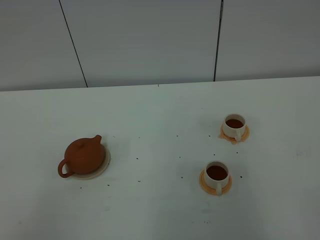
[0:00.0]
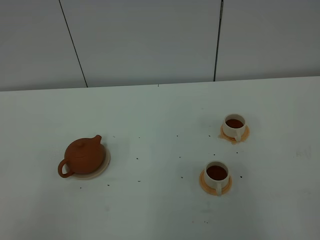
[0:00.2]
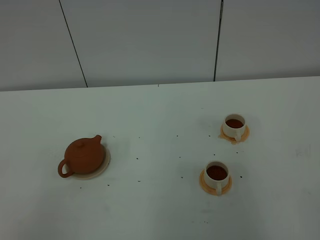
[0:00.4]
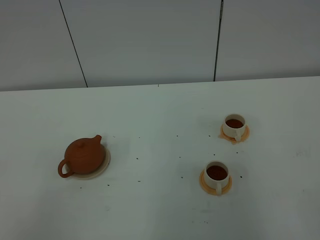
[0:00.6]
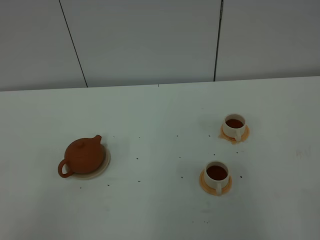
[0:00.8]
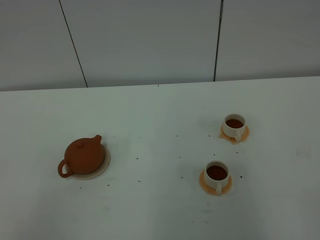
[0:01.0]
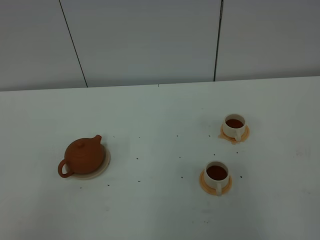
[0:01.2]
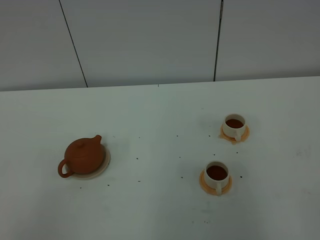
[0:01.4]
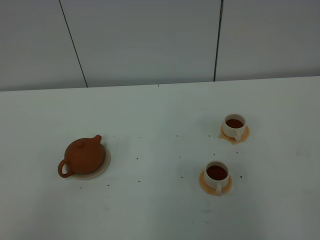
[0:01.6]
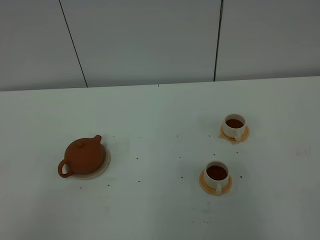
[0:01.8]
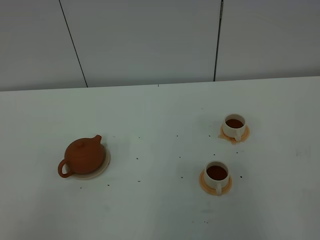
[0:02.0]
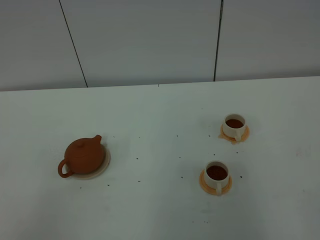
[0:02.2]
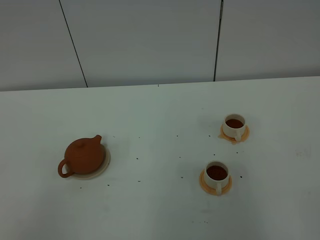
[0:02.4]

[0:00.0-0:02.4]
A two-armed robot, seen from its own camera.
Task of the whole recording: grasp the brown teapot and pour the tea into the two white teacups one by one, put the brown teapot back in its original place.
0:00.0 to 0:02.4: Neither gripper changes place.

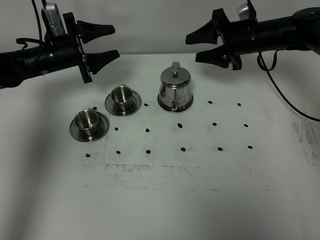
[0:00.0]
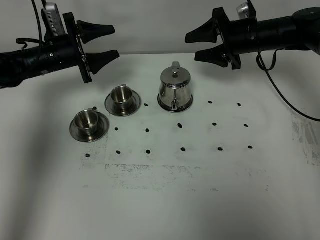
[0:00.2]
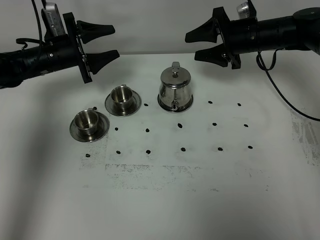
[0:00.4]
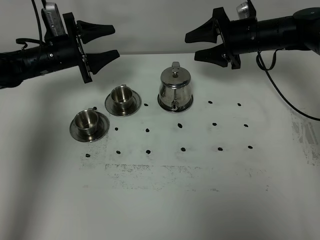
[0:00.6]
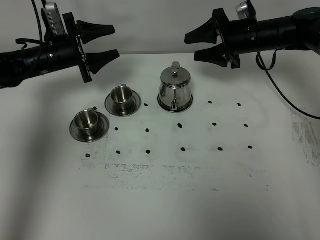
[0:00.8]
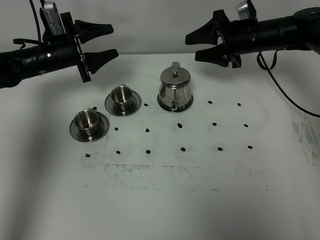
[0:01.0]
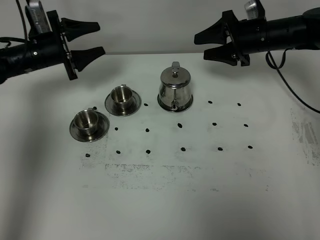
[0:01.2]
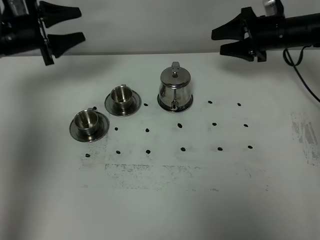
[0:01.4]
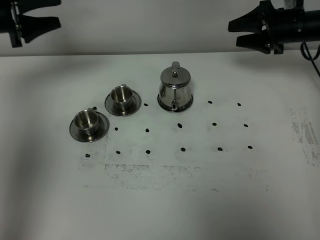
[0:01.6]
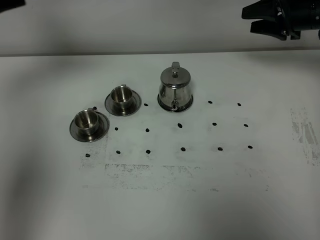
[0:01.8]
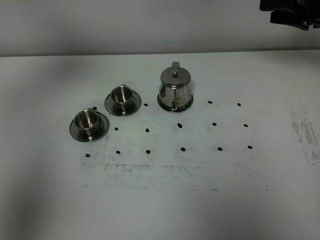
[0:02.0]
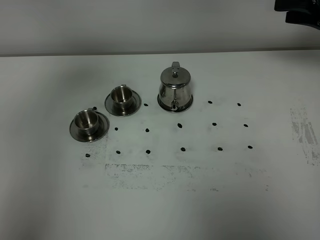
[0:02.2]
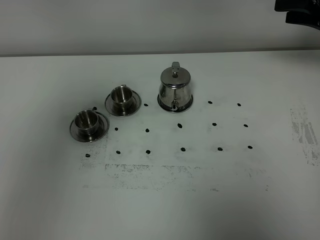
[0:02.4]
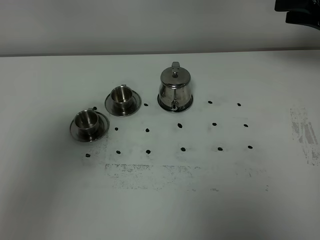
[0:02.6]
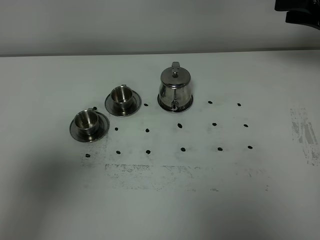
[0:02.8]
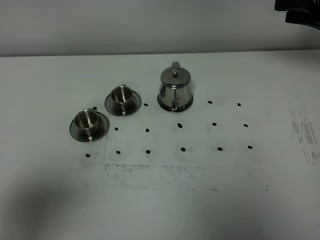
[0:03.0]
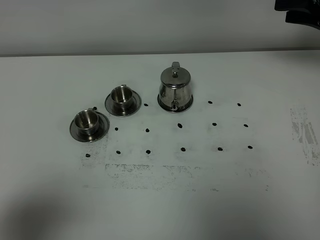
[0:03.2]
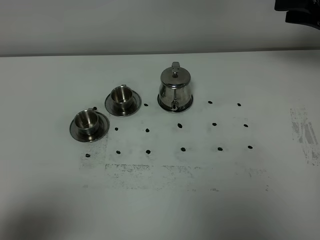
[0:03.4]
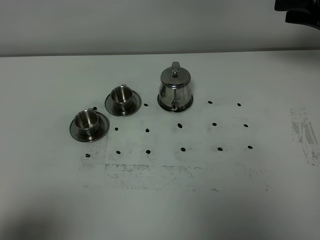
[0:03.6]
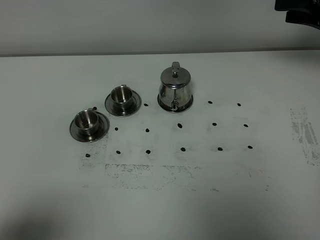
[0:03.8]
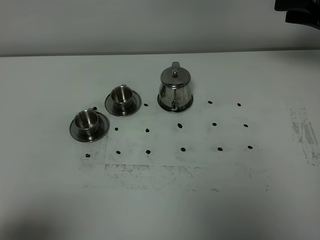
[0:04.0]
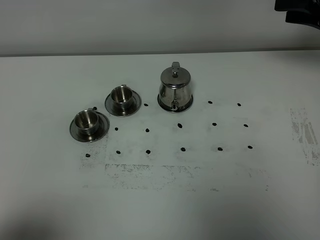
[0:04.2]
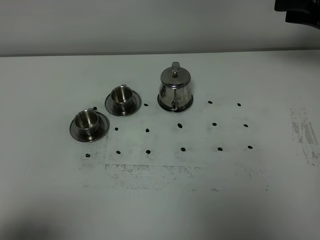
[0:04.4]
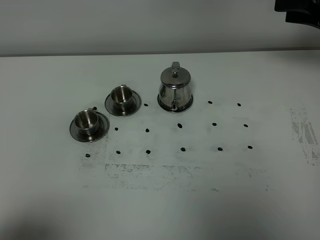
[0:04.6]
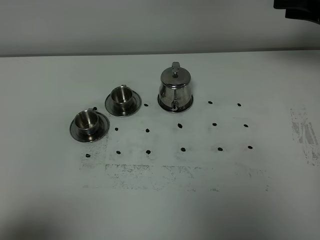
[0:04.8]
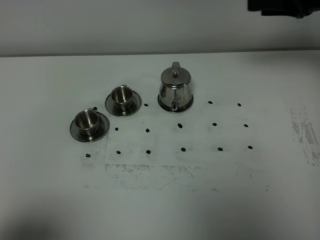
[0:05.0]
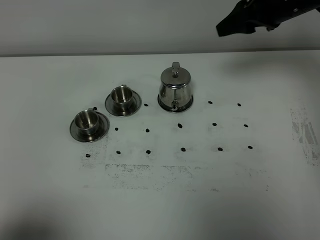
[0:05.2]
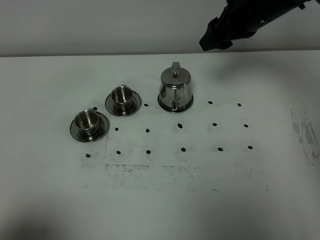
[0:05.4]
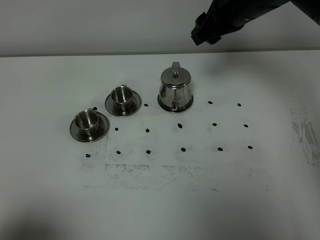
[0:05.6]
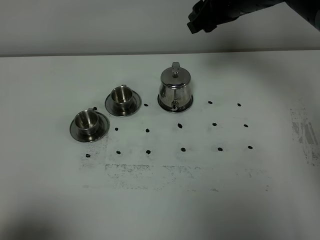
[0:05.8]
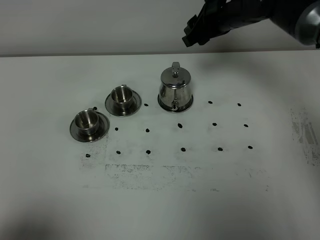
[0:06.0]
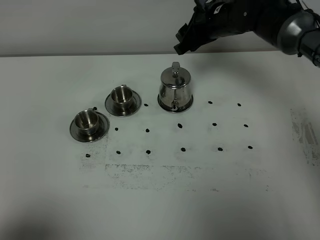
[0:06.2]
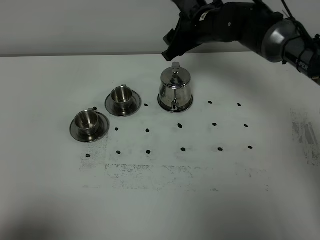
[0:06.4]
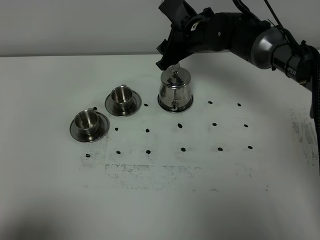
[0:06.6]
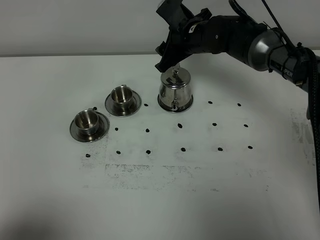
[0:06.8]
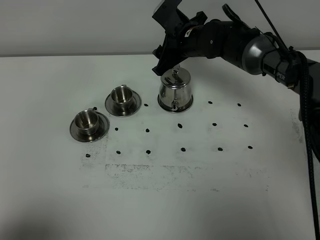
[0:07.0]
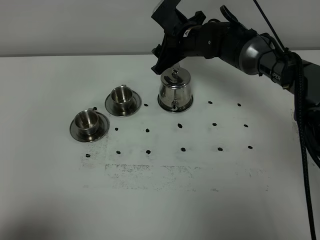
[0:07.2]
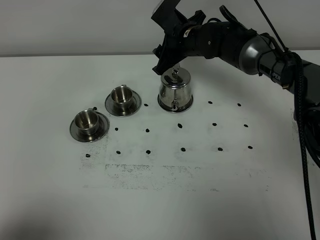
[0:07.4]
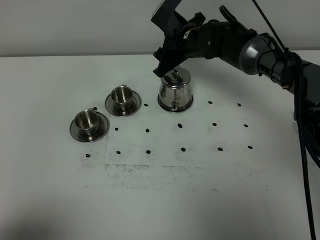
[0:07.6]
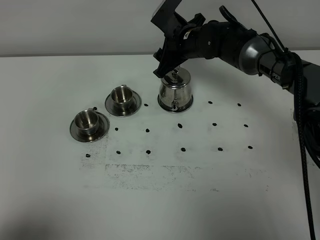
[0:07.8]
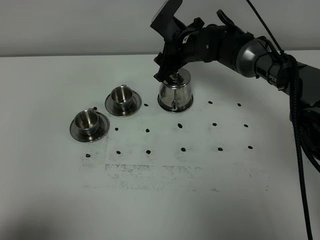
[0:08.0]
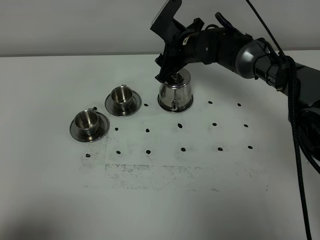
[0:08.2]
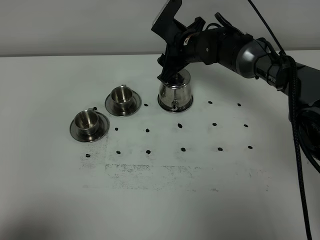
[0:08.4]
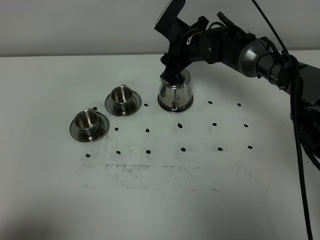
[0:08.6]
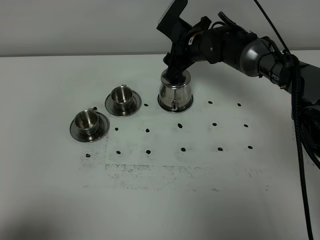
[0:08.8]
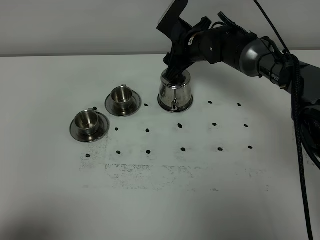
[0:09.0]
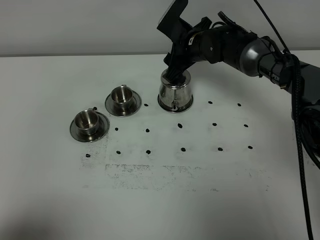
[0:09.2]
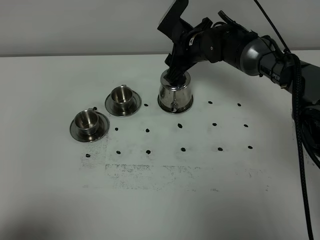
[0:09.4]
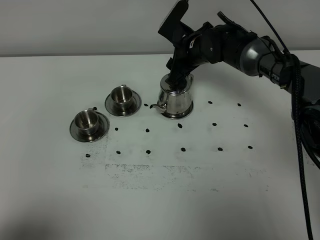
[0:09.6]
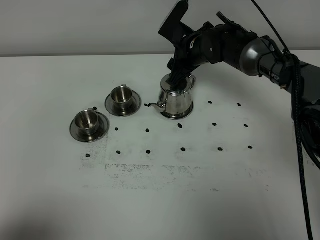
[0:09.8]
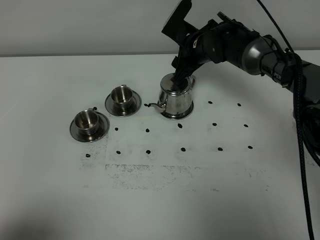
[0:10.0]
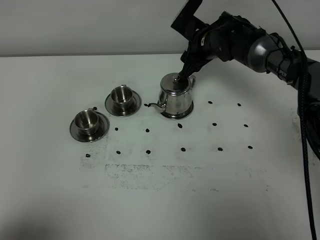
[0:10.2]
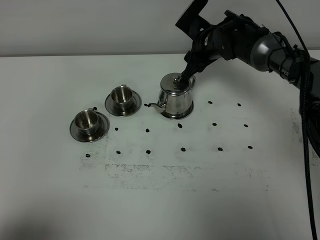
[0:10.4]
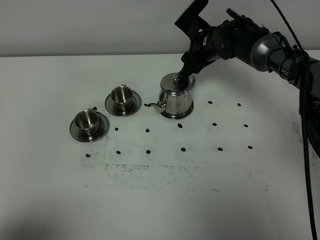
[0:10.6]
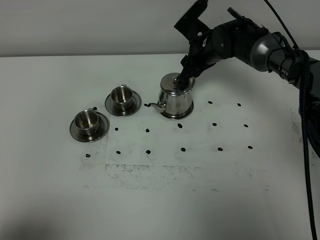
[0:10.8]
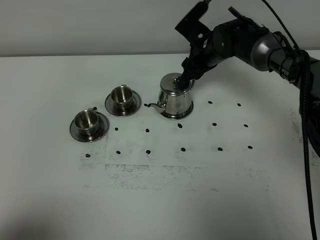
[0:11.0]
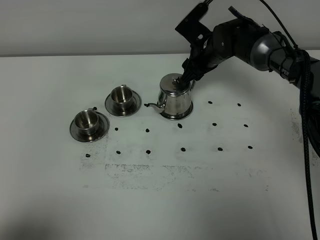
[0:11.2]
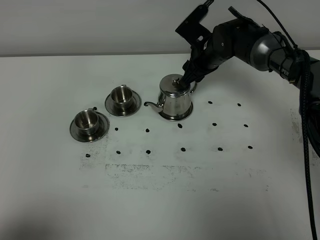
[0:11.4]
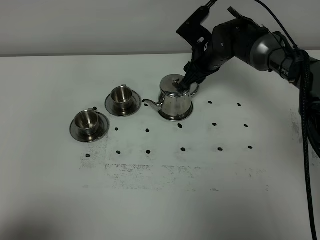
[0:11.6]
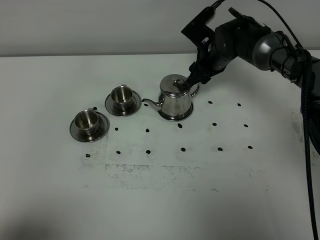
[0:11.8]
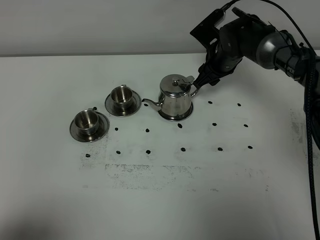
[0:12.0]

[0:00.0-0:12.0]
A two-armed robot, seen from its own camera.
Task of the whole recording: grasp the stainless steel teapot and pour the tea into the two stainless steel teacups one by one, put the stainless steel teapot back in its original place.
0:00.0 to 0:01.6: The left gripper shifts about 15 cm upward and to the left. The right gripper moves to the right, some 10 cm.
0:01.6 to 0:03.0: The left gripper shifts approximately 40 cm backward, while the right gripper travels upward and to the right by roughly 10 cm.
0:03.0 to 0:04.4: The left gripper moves downward, roughly 5 cm.
0:04.4 to 0:06.0: The right gripper heads to the left, covering some 20 cm.
0:06.0 to 0:07.6: The right gripper heads downward and to the left, covering approximately 10 cm.
0:07.6 to 0:10.4: The grippers make only small movements.
0:10.4 to 0:12.0: The grippers move only a little.

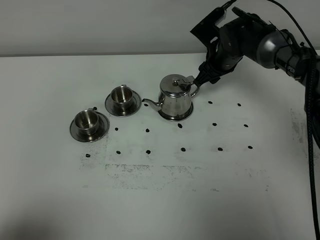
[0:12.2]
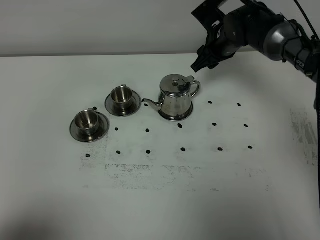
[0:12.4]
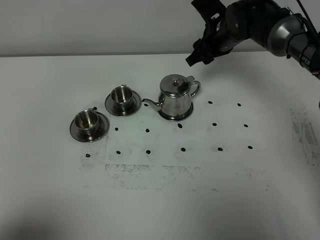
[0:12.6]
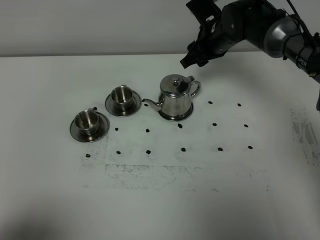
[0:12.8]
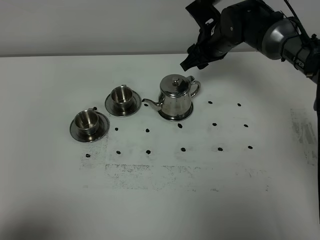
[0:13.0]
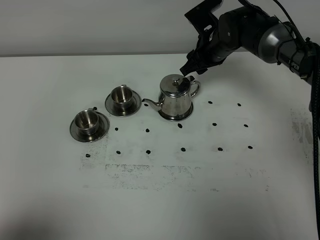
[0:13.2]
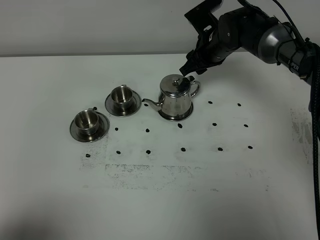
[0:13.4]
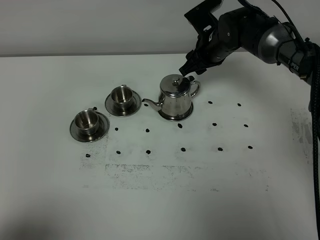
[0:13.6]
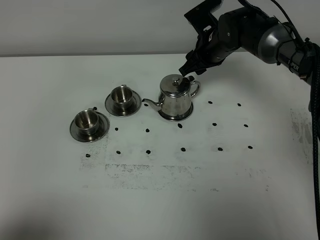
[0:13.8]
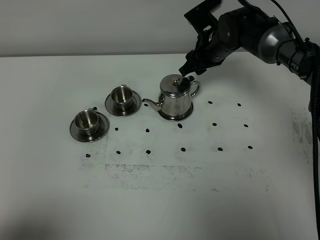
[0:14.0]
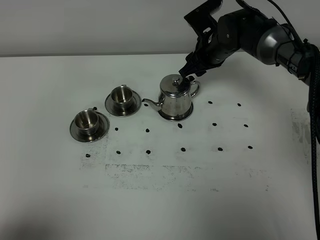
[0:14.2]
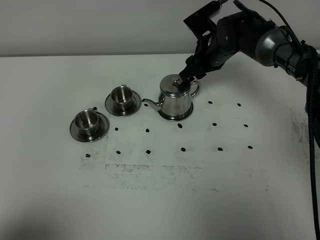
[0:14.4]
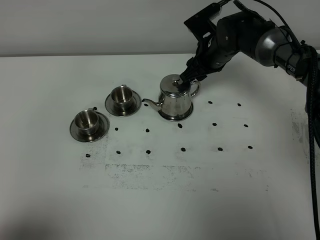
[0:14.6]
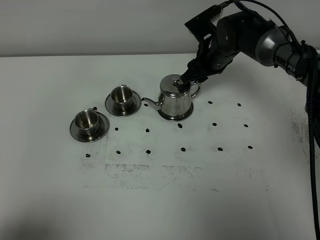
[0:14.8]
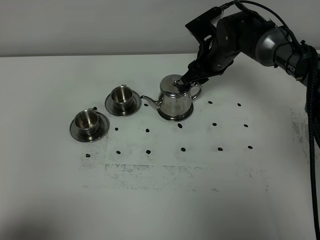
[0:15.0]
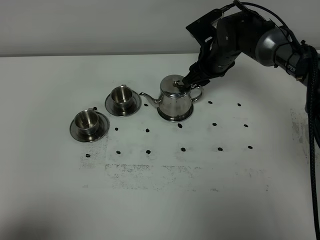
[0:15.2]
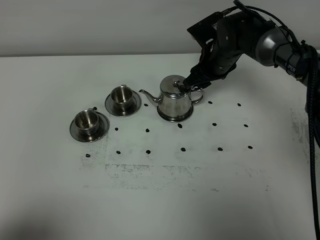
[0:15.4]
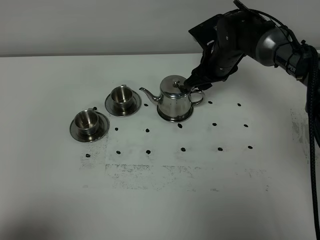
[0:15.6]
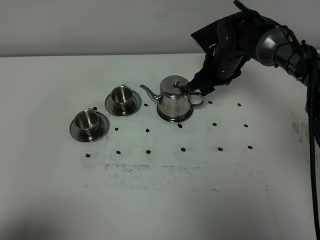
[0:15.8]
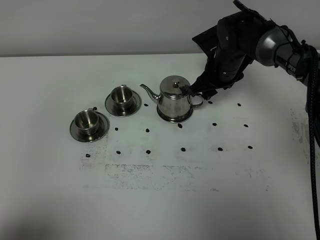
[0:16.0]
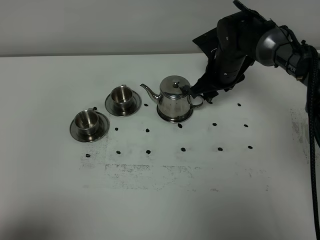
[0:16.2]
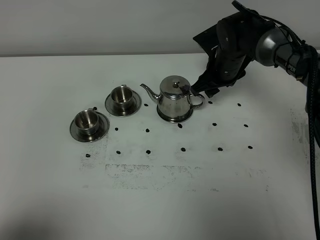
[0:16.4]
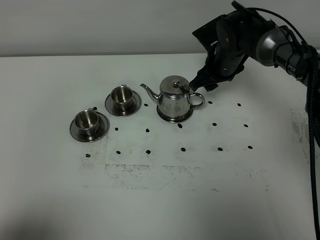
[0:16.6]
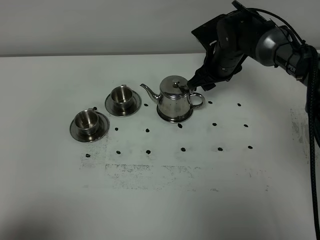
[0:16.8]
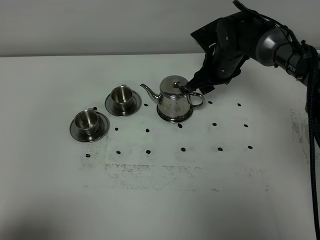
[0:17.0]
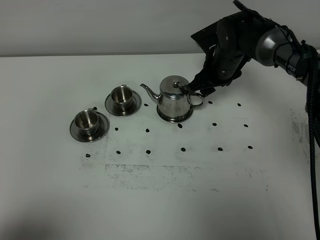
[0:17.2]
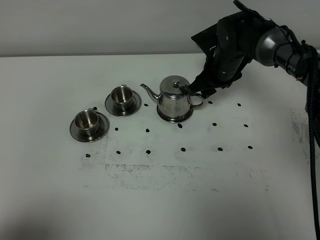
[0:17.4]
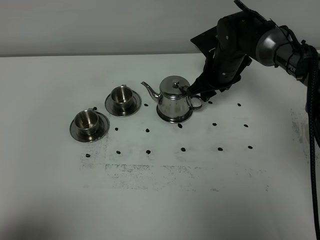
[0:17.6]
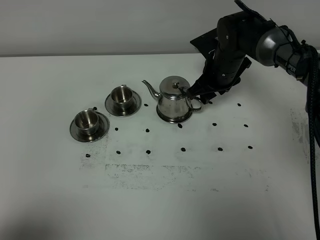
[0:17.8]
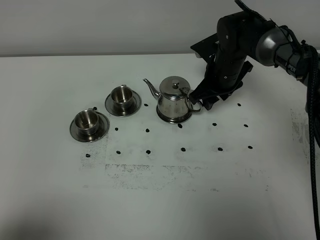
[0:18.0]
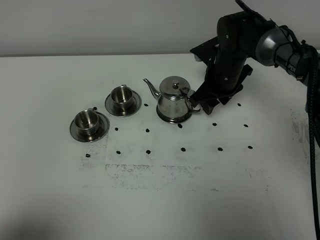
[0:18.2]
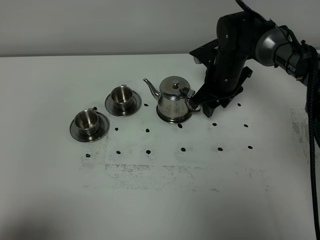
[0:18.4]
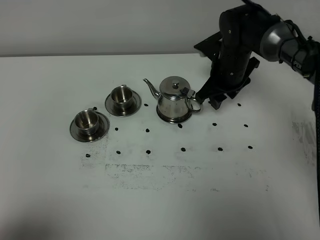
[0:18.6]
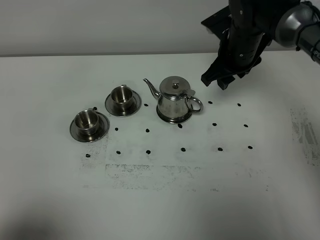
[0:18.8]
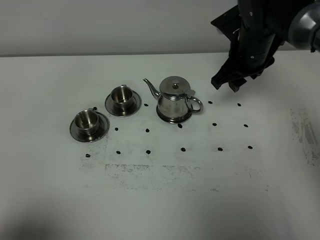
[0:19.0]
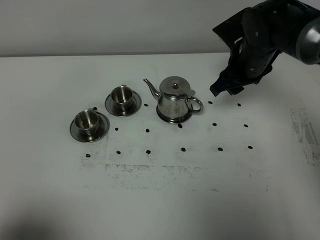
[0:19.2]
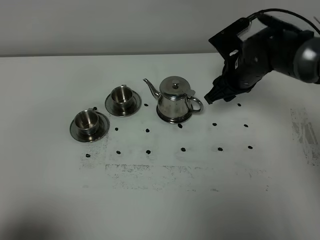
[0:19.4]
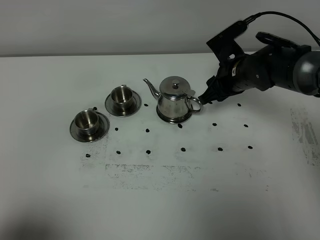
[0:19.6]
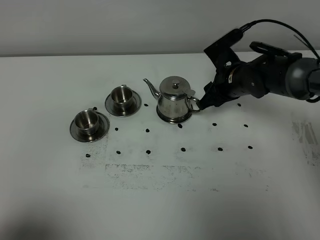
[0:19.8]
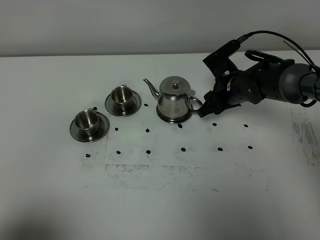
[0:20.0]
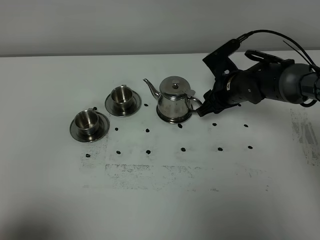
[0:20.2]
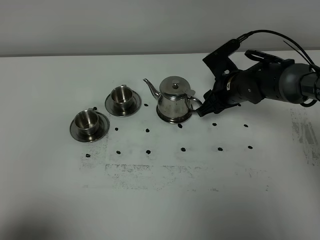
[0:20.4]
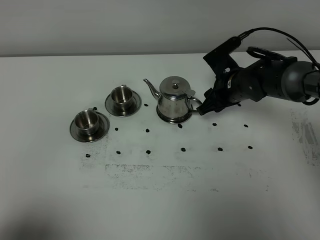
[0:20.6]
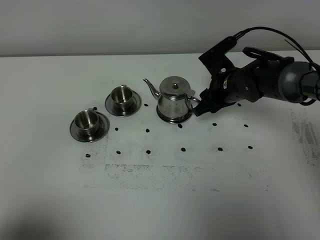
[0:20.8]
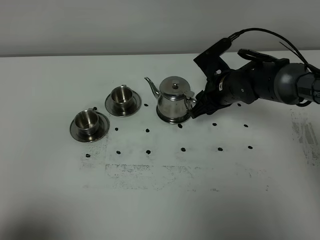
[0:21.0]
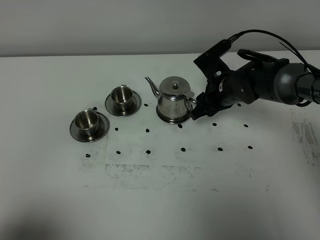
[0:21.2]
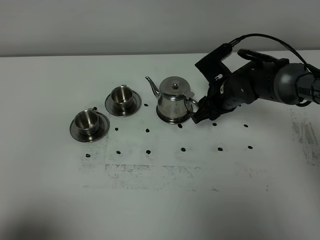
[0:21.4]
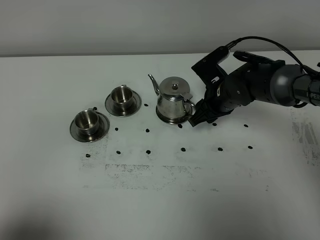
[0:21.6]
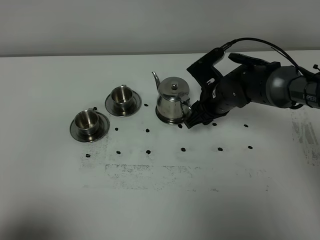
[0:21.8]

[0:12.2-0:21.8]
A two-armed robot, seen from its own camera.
Task of the whole recording: grasp the stainless steel teapot and pour the tea into the two stainless steel teacups one by one, put the stainless steel teapot back in its original place.
0:12.2 to 0:15.4: The grippers make only small movements.
0:15.4 to 0:17.0: There are only small adjustments of the grippers.
0:17.0 to 0:18.6: There are only small adjustments of the grippers.
0:18.6 to 0:20.2: The right gripper shifts some 5 cm downward.
0:20.2 to 0:21.8: There are only small adjustments of the grippers.
